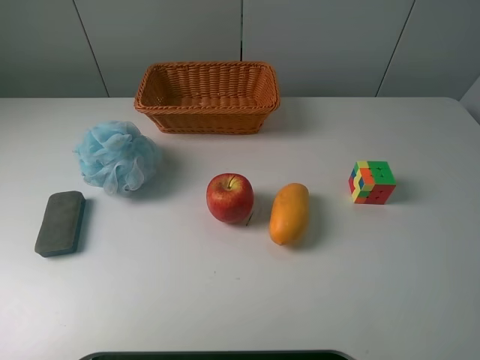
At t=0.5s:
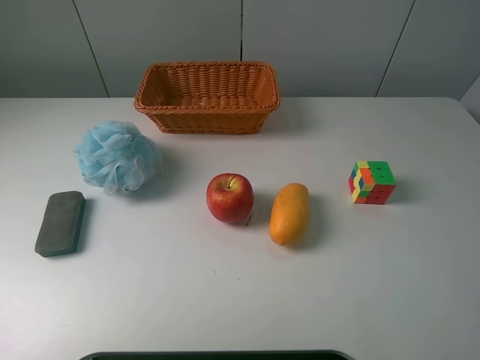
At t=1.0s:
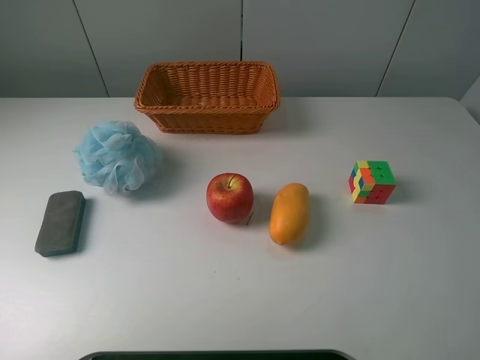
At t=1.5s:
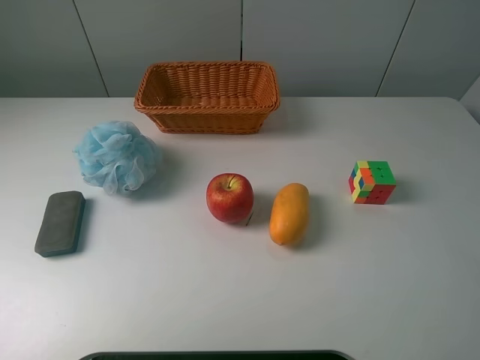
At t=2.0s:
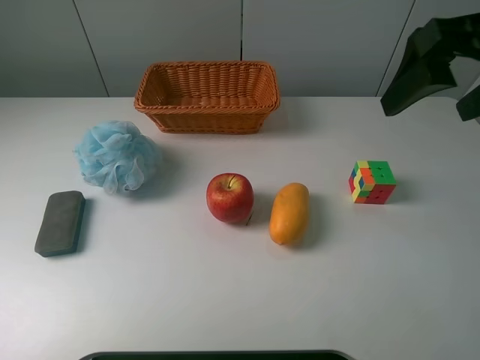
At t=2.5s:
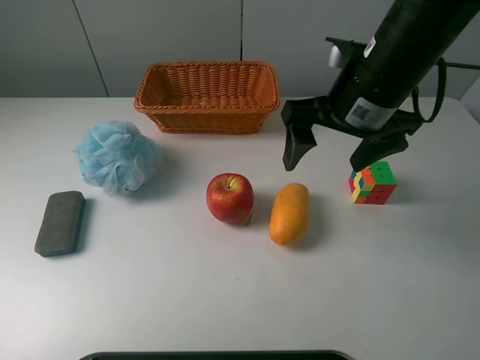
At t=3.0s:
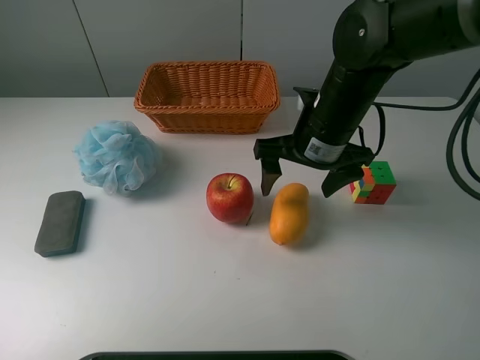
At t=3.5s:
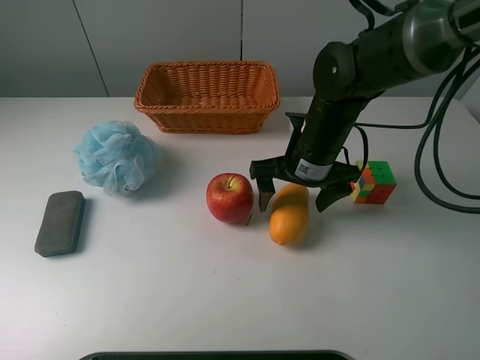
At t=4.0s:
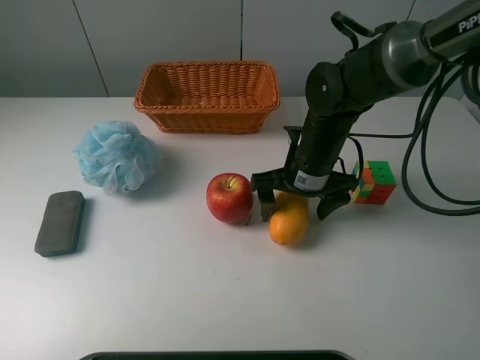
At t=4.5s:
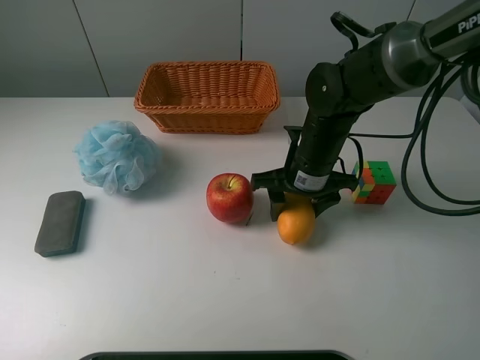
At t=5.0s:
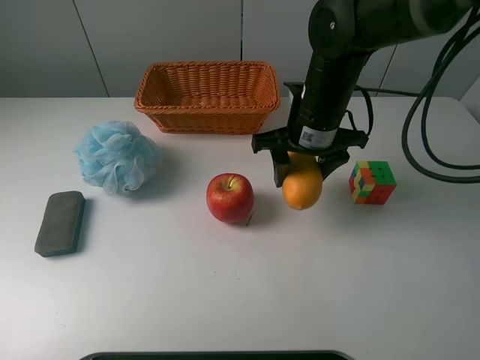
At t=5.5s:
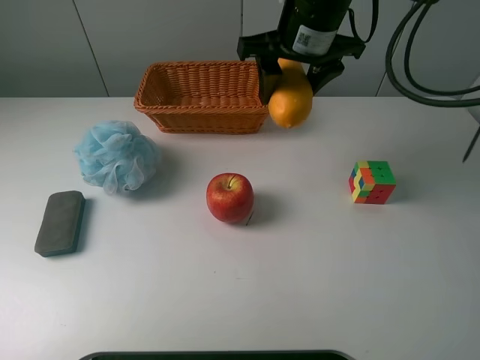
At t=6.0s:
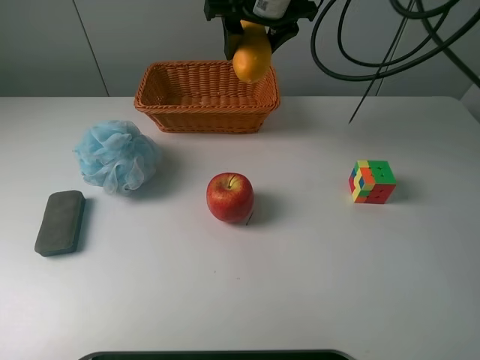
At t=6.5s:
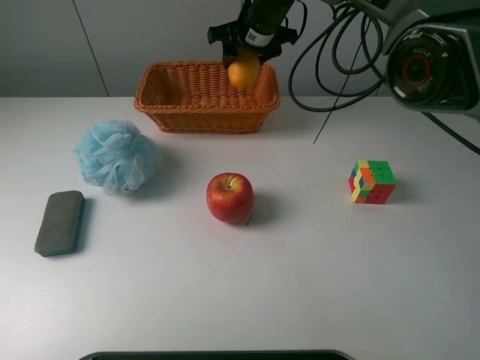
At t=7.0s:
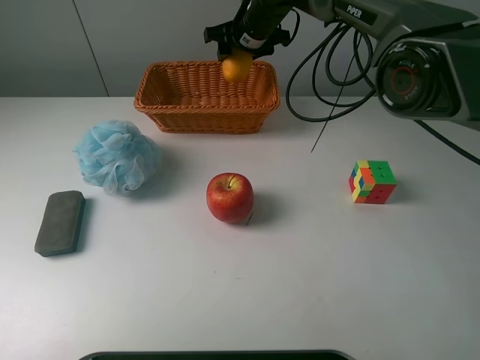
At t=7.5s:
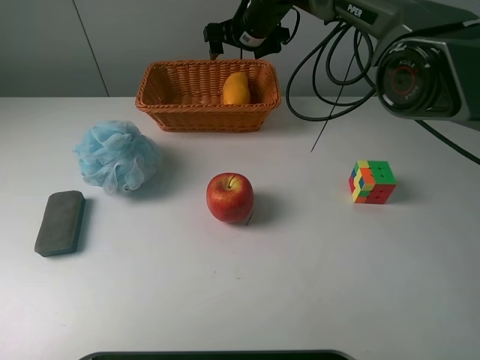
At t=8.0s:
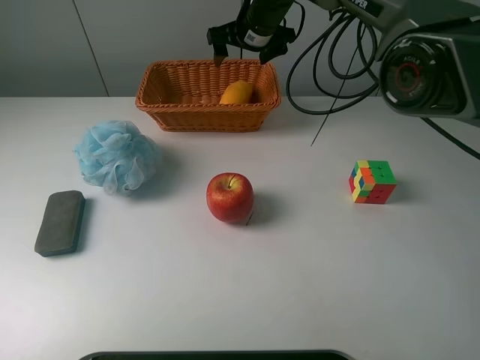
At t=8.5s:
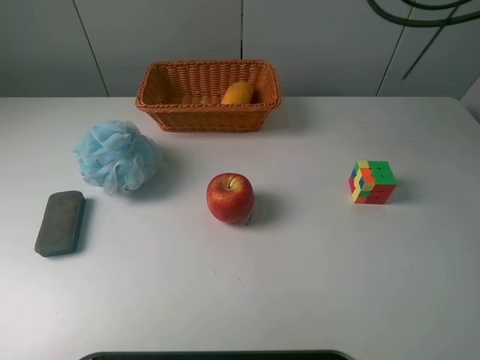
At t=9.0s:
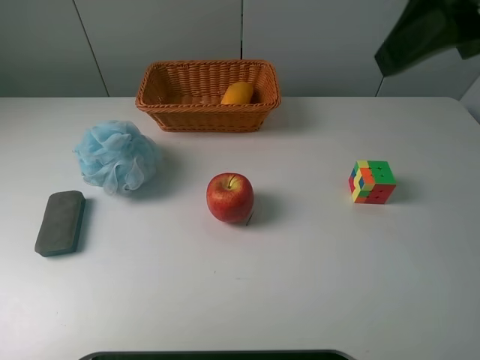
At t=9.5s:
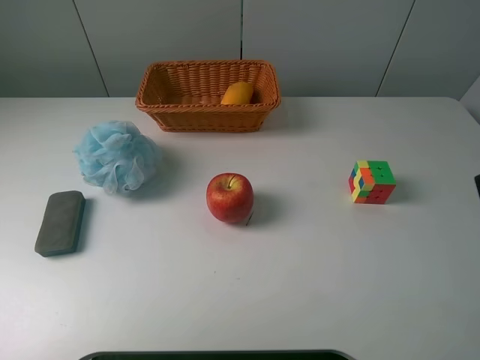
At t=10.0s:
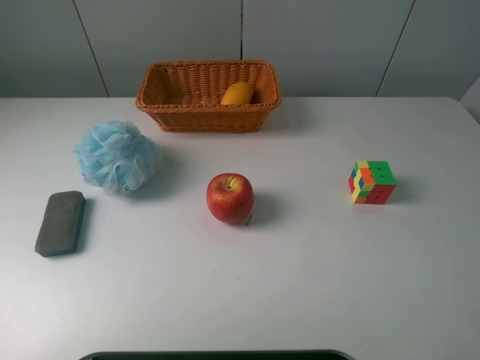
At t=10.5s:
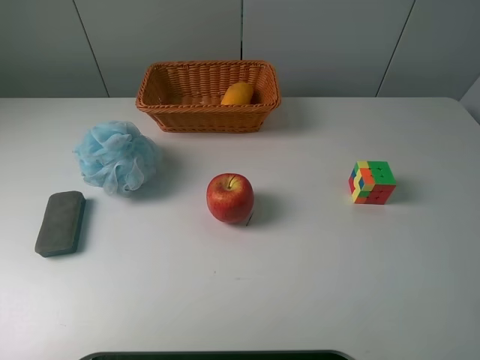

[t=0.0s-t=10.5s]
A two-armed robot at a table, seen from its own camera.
Task of the whole recording: use a picker to grab the item closest to the apple and place it in the basket.
Step, t=0.0s to t=4.0s: Grasp the mango with the right gripper.
Step, t=4.5s to t=7.5s: Place the mango into the basket with the right gripper.
t=0.0s to t=2.0s: The right gripper moves forward, some 25 cm.
t=2.0s to t=4.0s: The right gripper moves downward and to the left, roughly 25 cm.
t=4.0s to t=6.5s: The right gripper heads forward and upward, covering some 25 cm, and closes its fingers.
t=6.5s to t=8.5s: The right gripper travels upward and backward by approximately 20 cm, and opens up.
t=8.5s to t=10.5s: The right gripper heads backward and to the right, covering some 40 cm.
